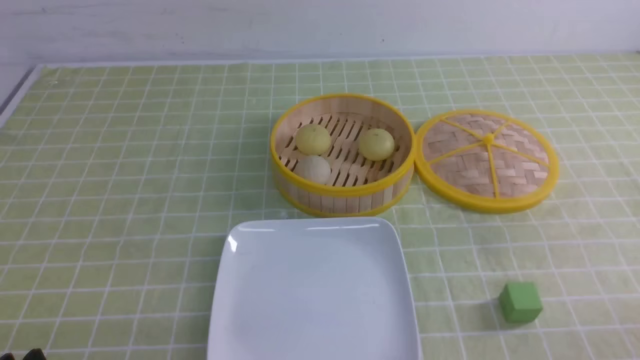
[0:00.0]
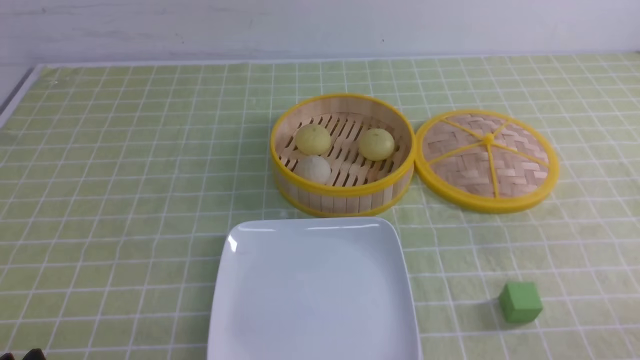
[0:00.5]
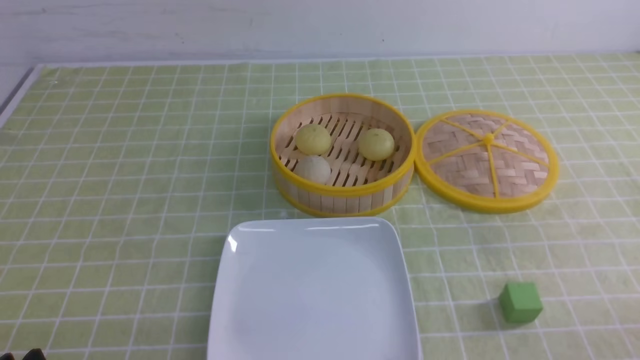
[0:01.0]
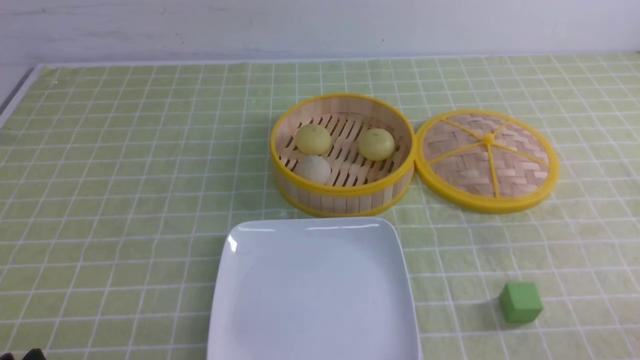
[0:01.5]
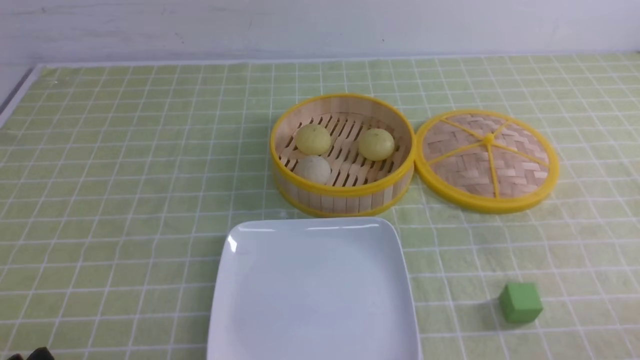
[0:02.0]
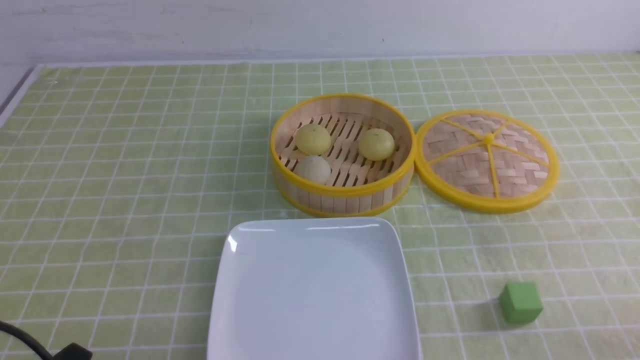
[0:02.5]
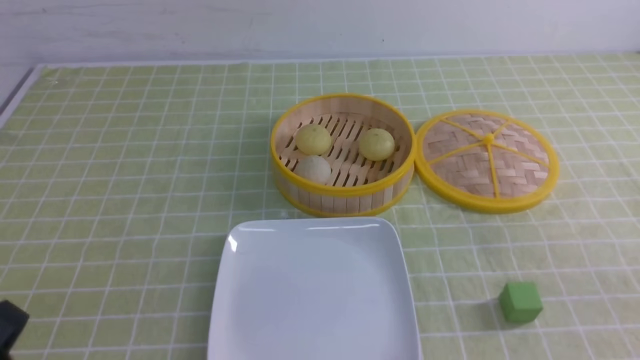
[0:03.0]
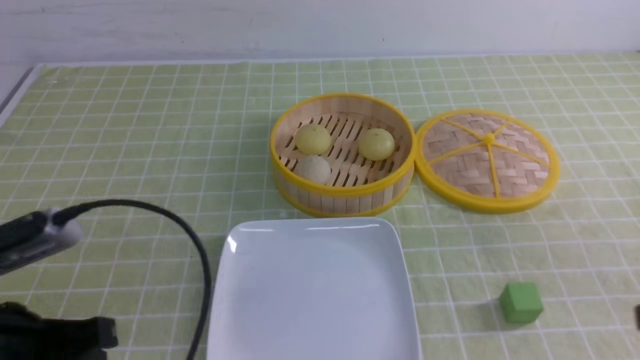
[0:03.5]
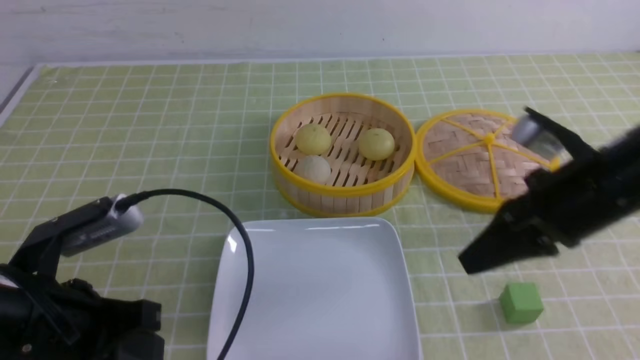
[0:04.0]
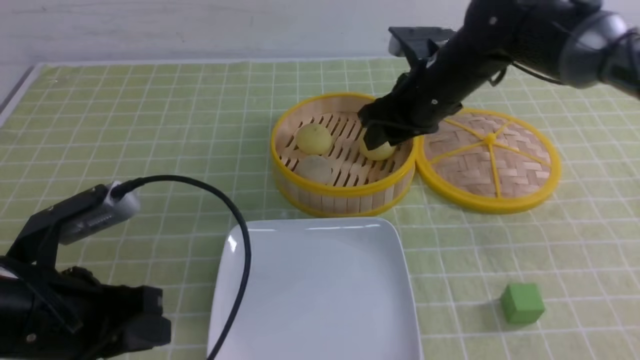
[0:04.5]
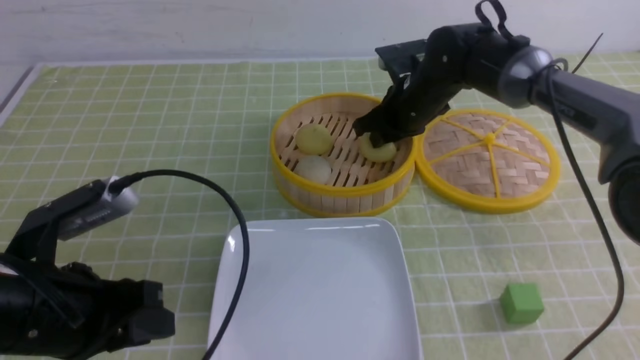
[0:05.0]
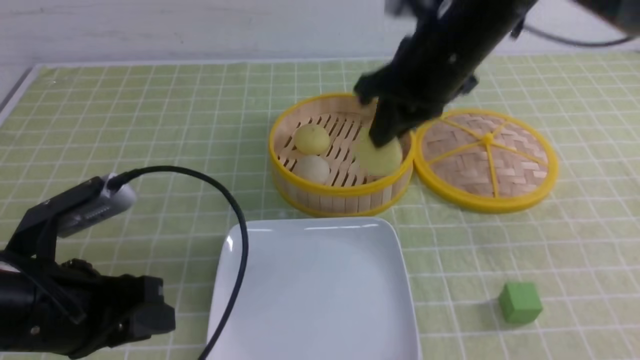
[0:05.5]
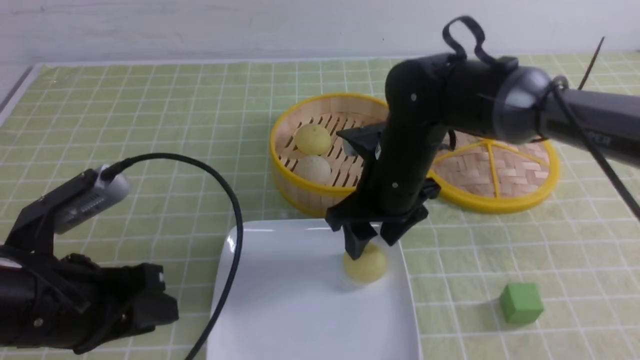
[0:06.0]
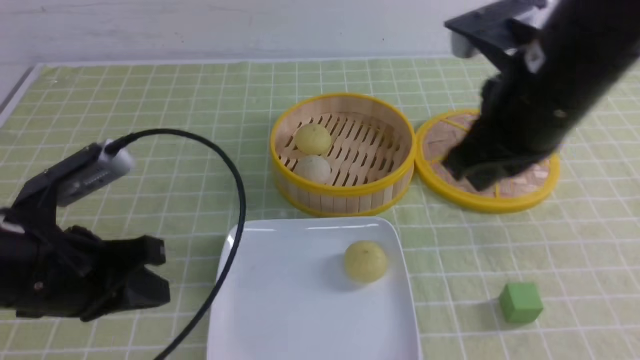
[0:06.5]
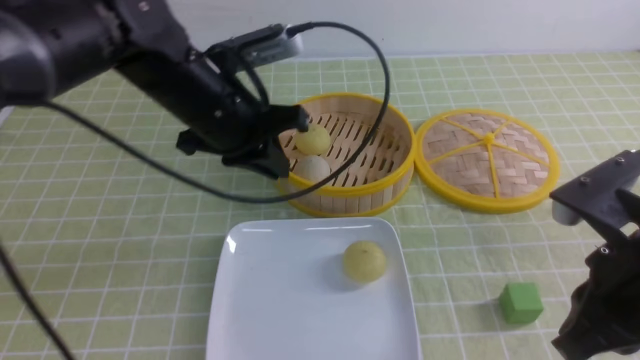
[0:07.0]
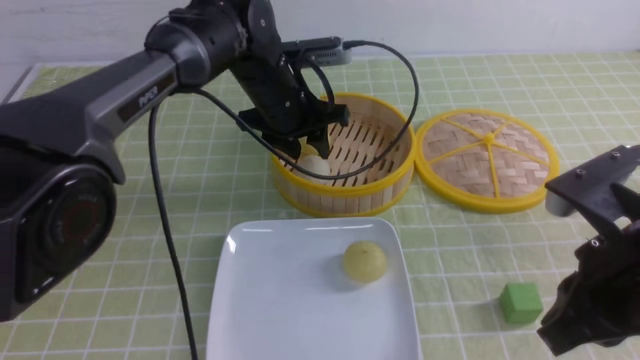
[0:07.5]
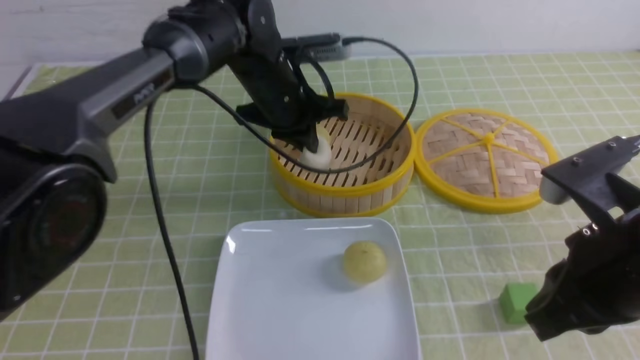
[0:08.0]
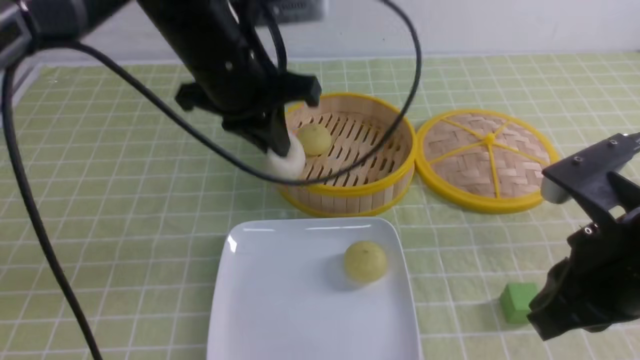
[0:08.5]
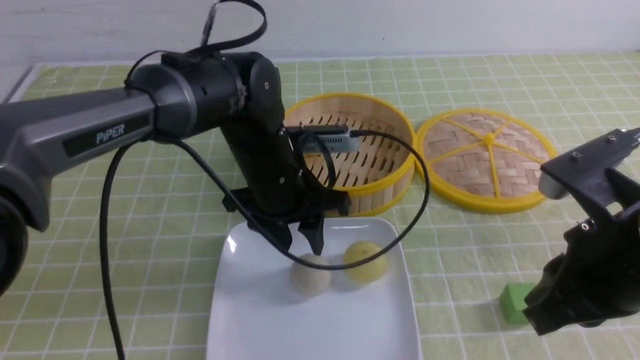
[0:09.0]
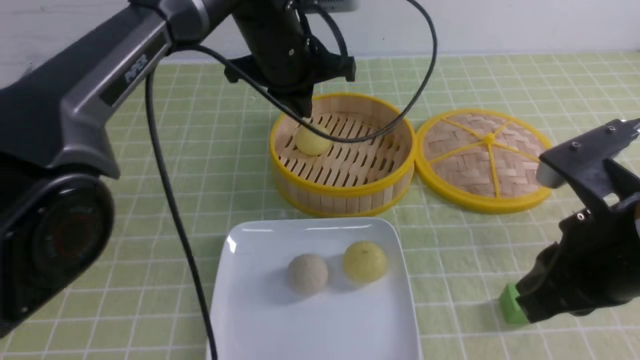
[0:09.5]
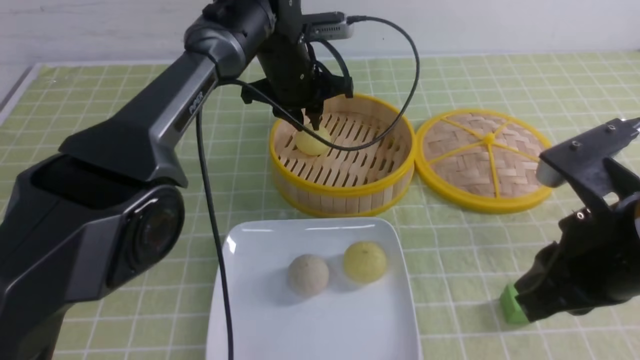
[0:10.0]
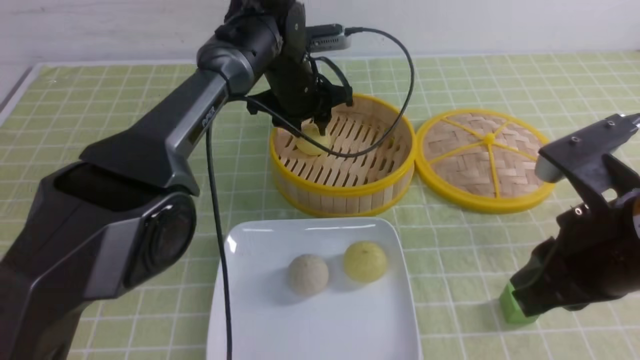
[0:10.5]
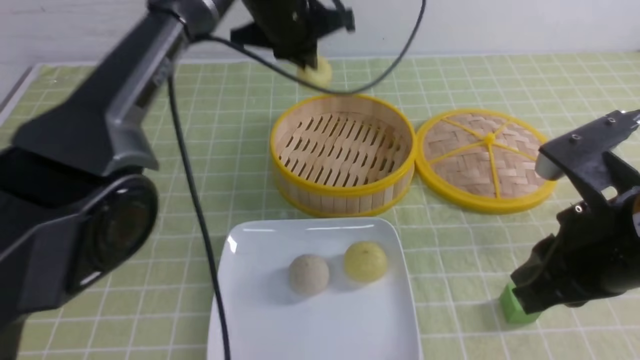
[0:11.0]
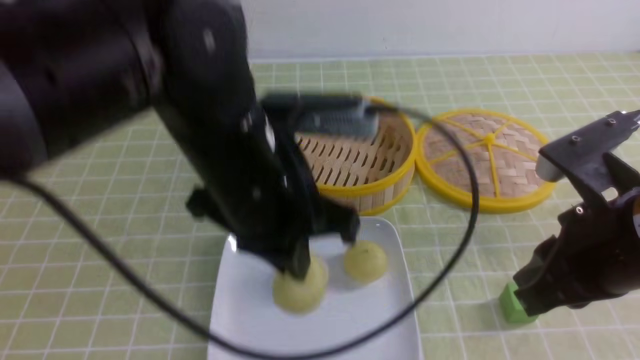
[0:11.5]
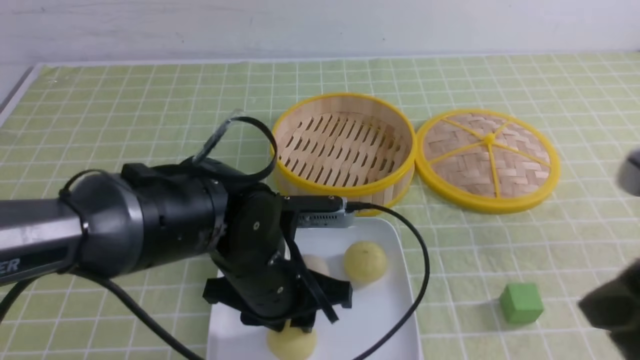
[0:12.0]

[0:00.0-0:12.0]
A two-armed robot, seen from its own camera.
Step, 0:00.0 to 0:05.0: use the right arm to grab the steamed stuffed bun that is closest to it.
Step, 0:05.5 to 0:06.0: use the right arm to put the steamed stuffed bun into the plate.
Step, 0:06.5 to 0:07.5: use the left arm to grab the steamed stuffed bun that is closest to it.
Step, 0:08.0 to 0:08.5: use the left arm to put the steamed stuffed bun into the plate.
Step, 0:09.5 to 0:10.5: use the left arm to grab the steamed stuffed bun that is closest to it.
0:02.0 to 0:04.0: The left gripper travels forward and upward by roughly 10 cm, and closes; the right gripper shifts roughly 25 cm forward, to the left and upward, and closes up.
0:04.0 to 0:06.0: The left gripper opens up, while the right gripper shifts some 15 cm to the left and forward, and opens its fingers.
0:06.0 to 0:08.0: The right gripper heads backward and to the right, covering roughly 20 cm, and closes up; the left gripper travels forward and to the right by some 30 cm, and closes.
0:08.0 to 0:10.0: The left gripper goes about 5 cm forward, and opens.
0:10.0 to 0:12.0: The right gripper heads backward, covering some 5 cm. The left gripper heads backward, covering about 25 cm, and closes, then reopens.

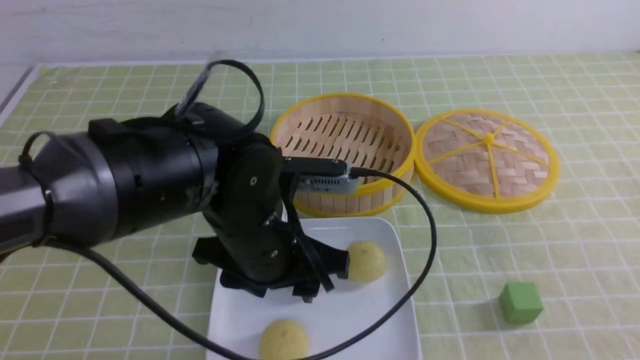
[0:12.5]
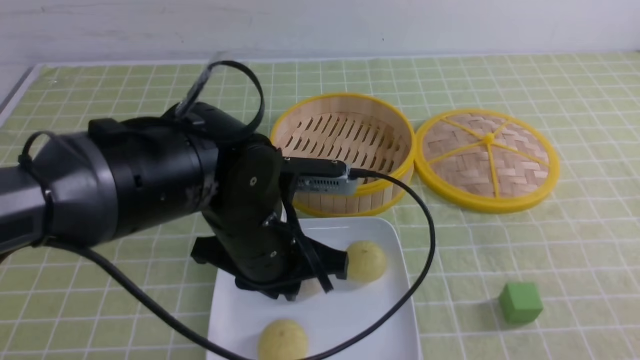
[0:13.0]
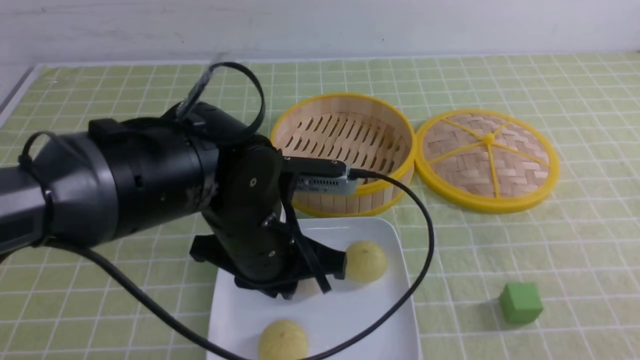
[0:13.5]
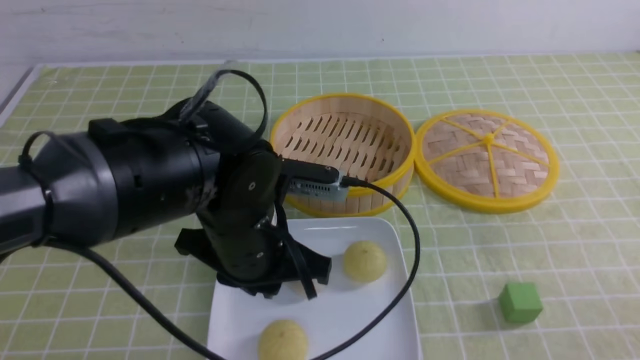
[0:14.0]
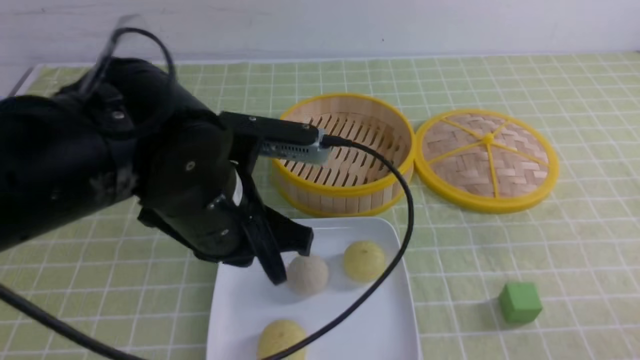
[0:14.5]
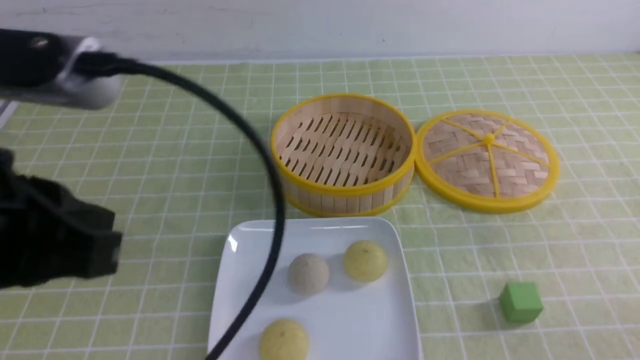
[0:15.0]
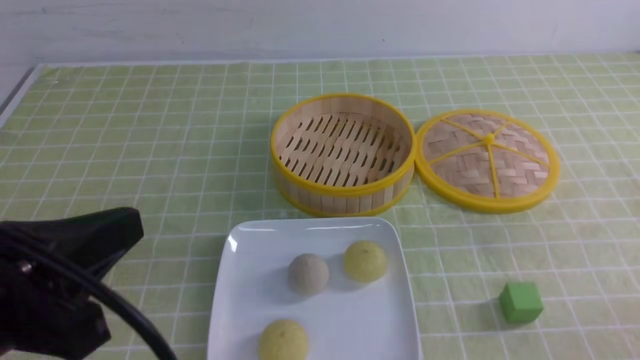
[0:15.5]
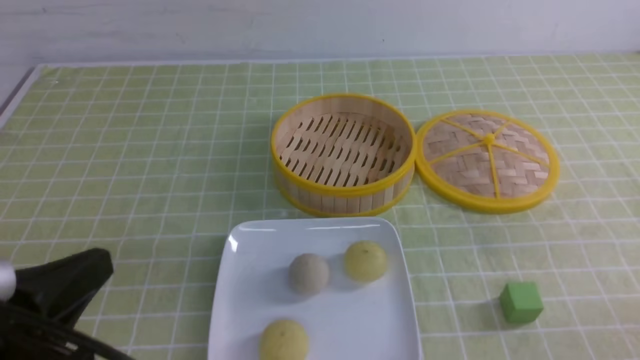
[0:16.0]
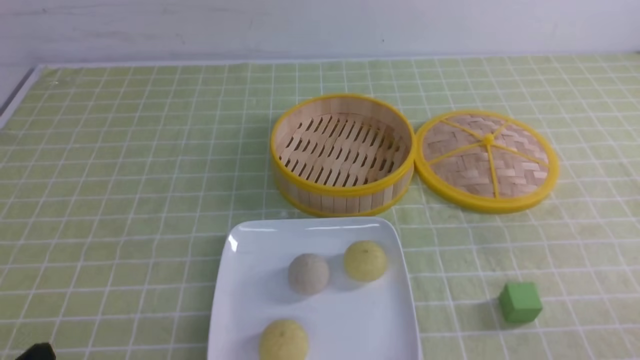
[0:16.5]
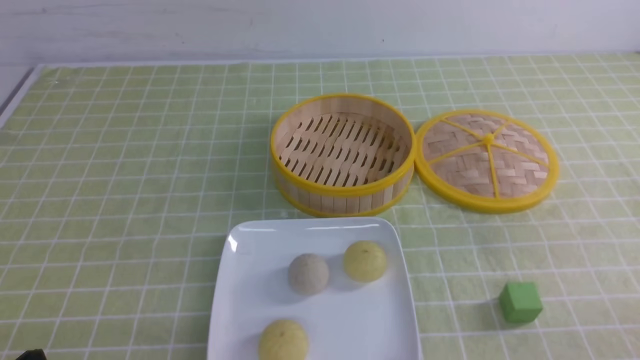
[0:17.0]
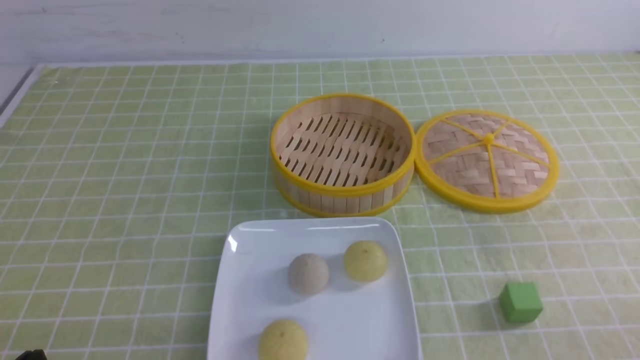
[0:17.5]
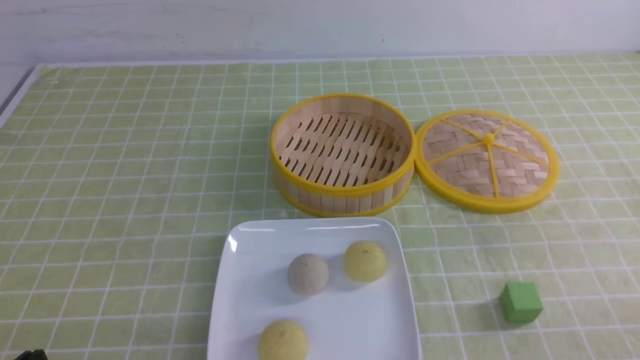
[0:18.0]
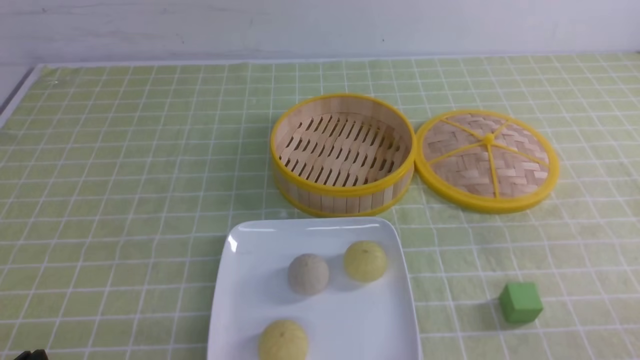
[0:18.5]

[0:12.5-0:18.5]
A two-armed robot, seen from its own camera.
0:12.5 to 0:14.5: The right gripper moves downward, approximately 15 cm, while the left gripper goes approximately 5 cm upward, and closes its fingers.
0:14.5 to 0:16.5: The left gripper heads to the left, backward and downward, covering about 25 cm.
0:16.5 to 0:18.5: Both grippers stay about where they are.
